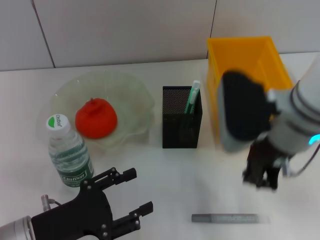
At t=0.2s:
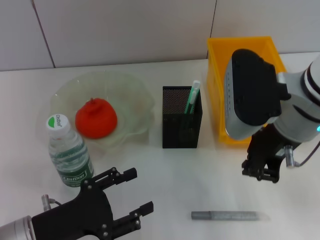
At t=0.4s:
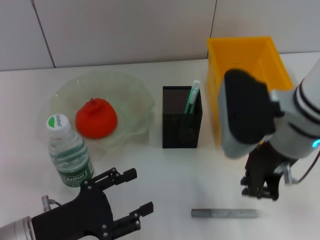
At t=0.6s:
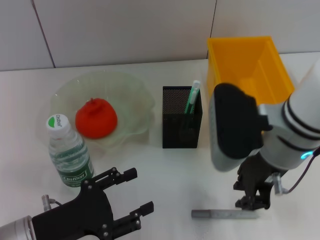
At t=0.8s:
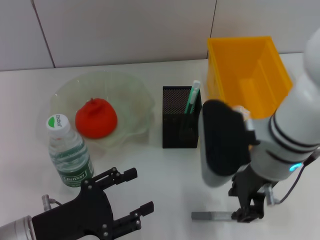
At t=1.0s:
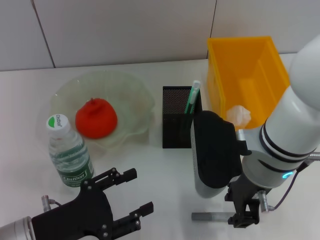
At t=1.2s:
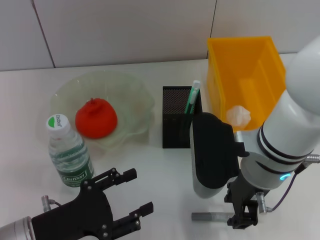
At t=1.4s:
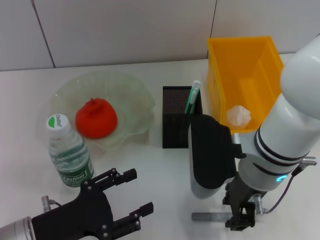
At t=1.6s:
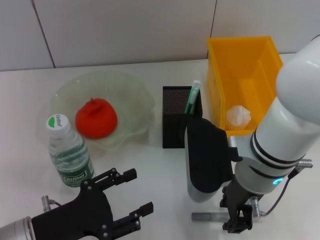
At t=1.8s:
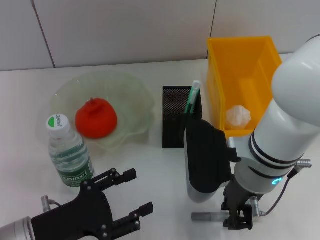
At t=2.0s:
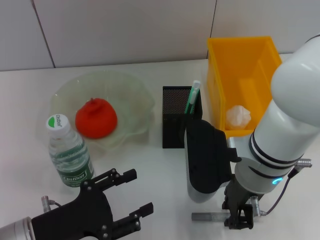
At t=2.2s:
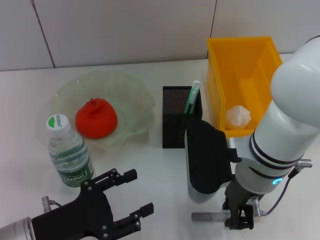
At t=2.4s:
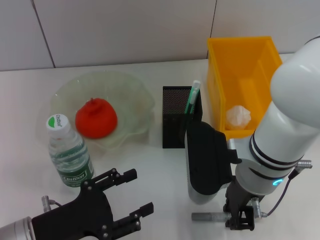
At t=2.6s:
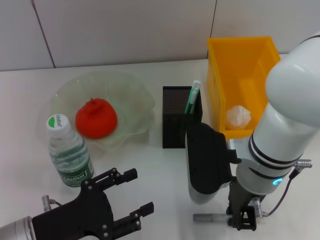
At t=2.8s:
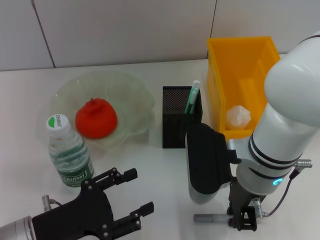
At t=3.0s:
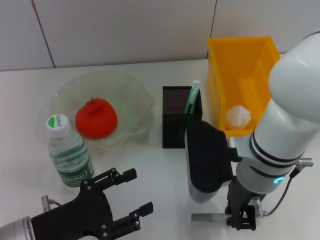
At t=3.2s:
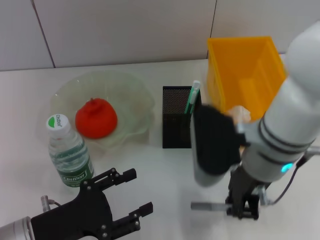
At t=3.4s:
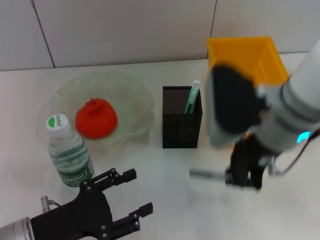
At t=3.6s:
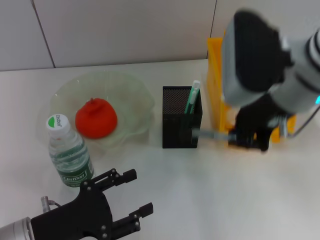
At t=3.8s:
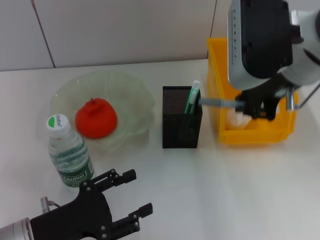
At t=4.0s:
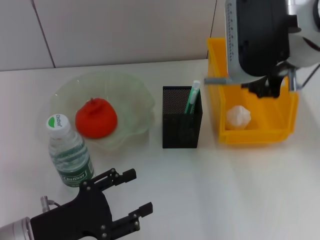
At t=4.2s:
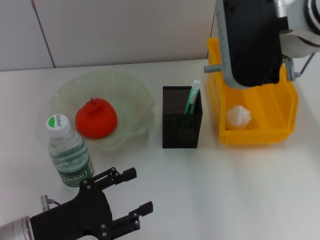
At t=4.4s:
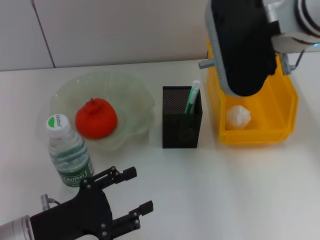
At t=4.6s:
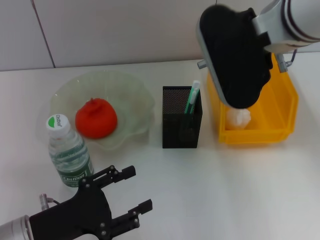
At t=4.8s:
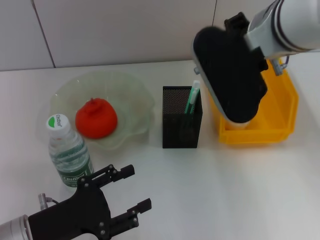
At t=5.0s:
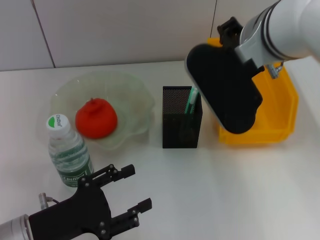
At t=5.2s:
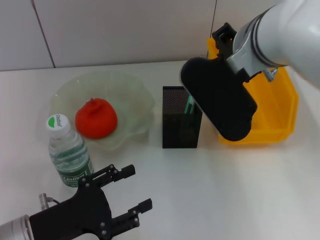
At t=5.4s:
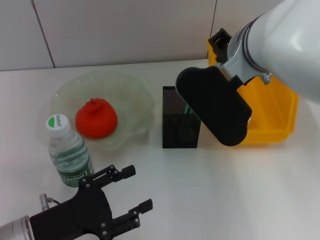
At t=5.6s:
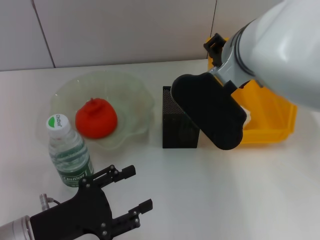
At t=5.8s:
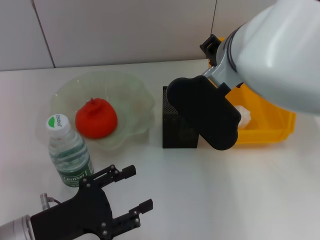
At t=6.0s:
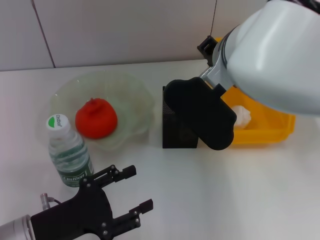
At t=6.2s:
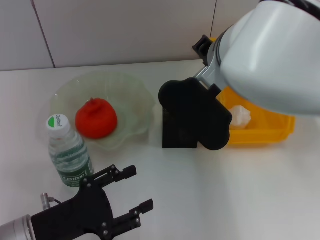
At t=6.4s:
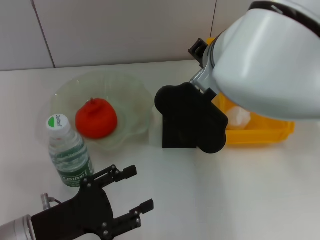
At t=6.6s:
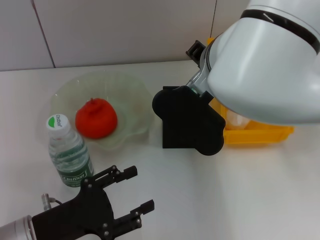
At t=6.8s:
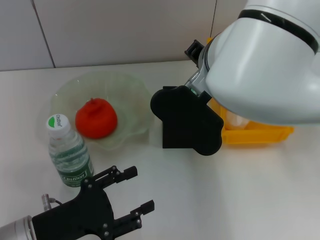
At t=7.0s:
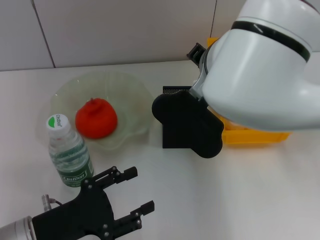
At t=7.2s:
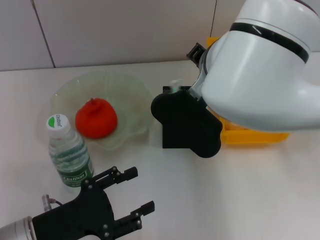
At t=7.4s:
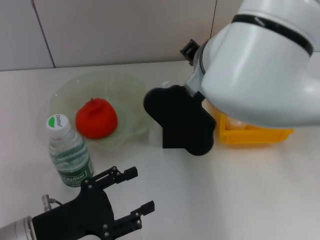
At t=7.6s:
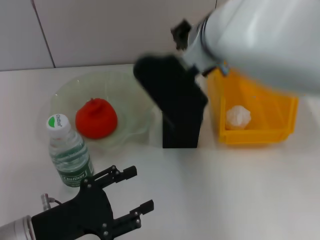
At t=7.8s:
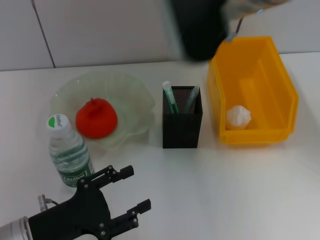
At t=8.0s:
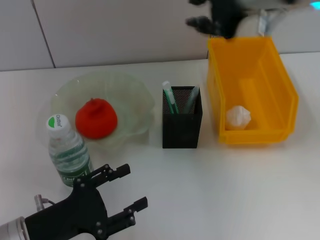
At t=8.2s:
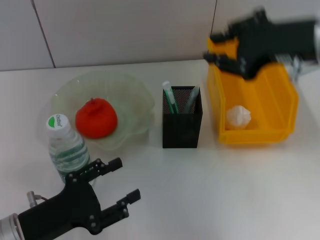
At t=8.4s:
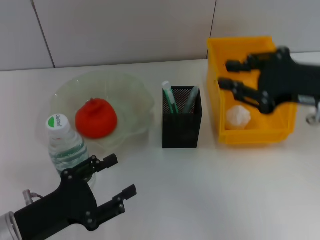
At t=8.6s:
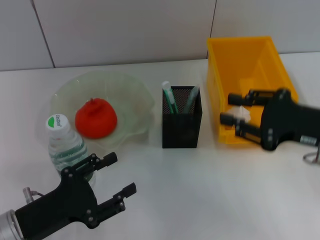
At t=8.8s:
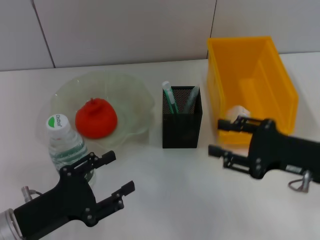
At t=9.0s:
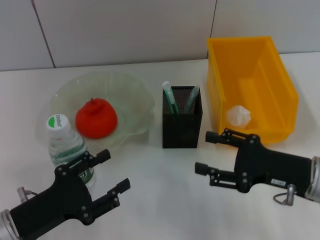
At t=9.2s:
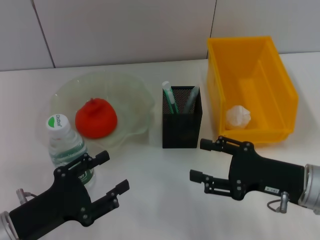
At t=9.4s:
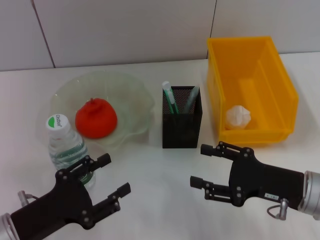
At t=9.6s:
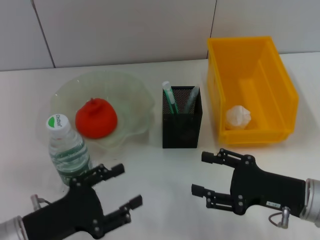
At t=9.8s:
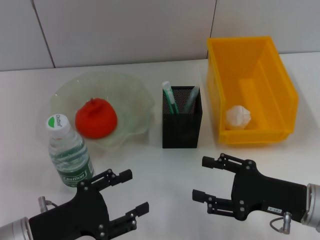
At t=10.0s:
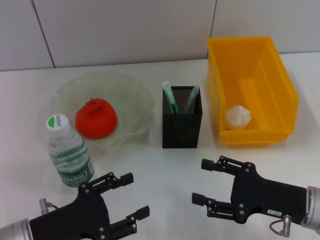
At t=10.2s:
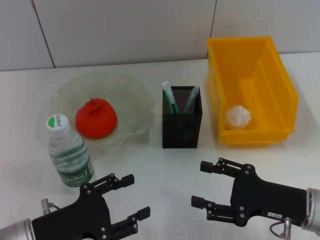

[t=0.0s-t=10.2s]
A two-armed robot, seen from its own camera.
Step, t=0.0s to t=2.4s: Grab the gray glue with the right hand.
Step, t=2.8s to t=7.4s: Place the gray glue into the pen holder with the right hand.
t=0.0s to t=1.4s: The right gripper travels downward by some 5 cm, and opens.
t=1.4s to t=3.0s: The right gripper closes.
t=3.0s to t=4.4s: The right gripper goes approximately 15 cm upward.
t=4.4s to t=5.8s: The right gripper heads downward, covering about 5 cm.
t=5.8s to t=7.2s: The grippers move only a little.
t=7.2s to t=8.8s: The right gripper heads to the right, downward and backward, covering some 25 cm.
t=8.8s to t=10.2s: The right gripper goes some 5 cm downward, and opens its fingers.
